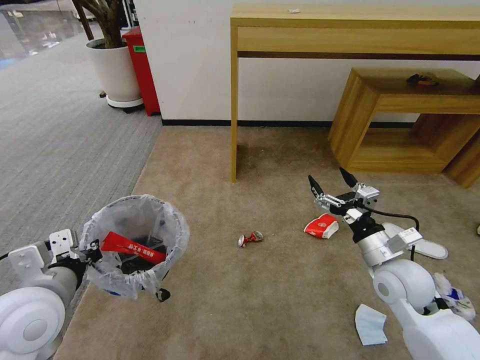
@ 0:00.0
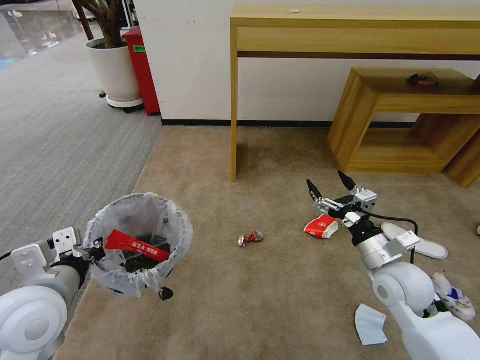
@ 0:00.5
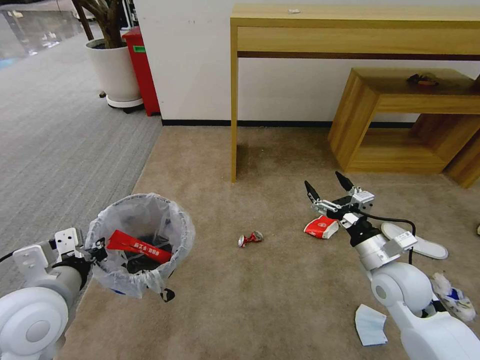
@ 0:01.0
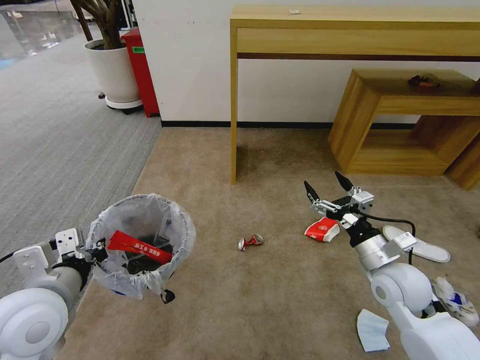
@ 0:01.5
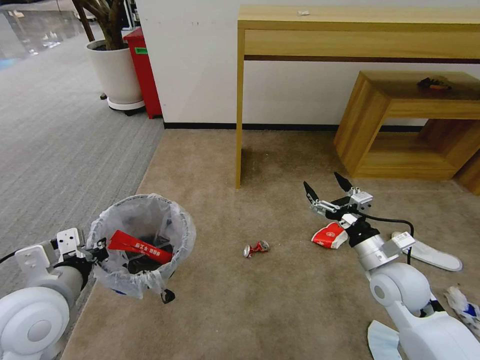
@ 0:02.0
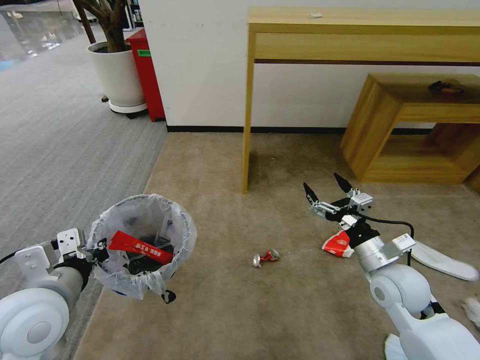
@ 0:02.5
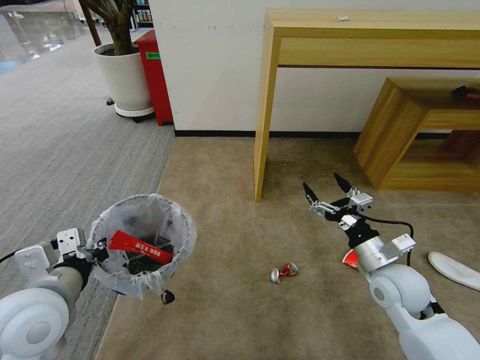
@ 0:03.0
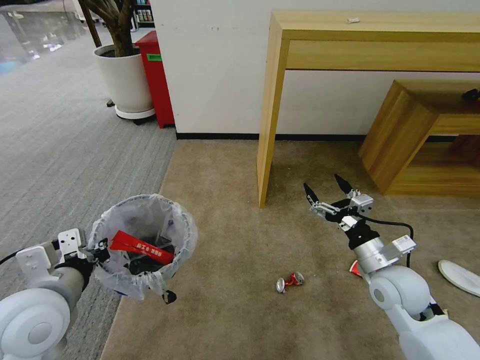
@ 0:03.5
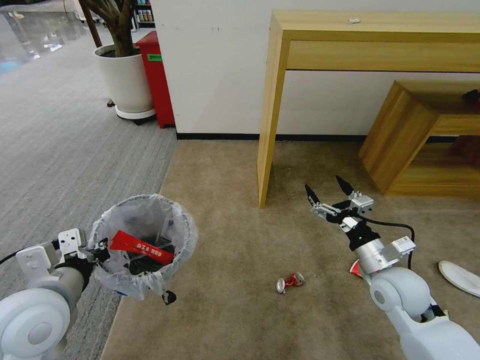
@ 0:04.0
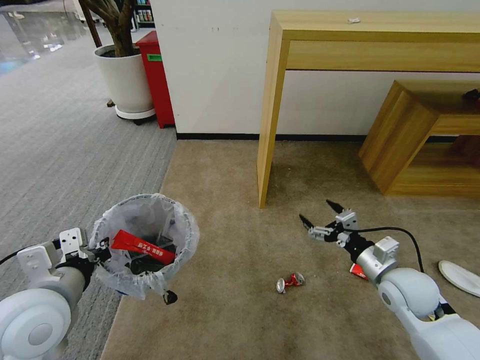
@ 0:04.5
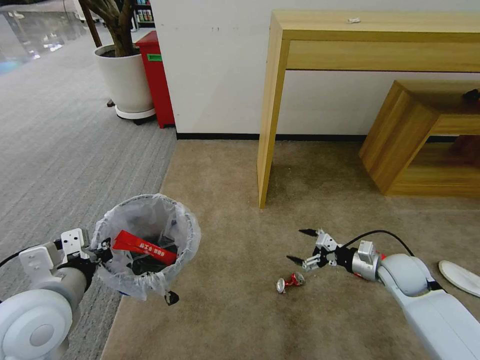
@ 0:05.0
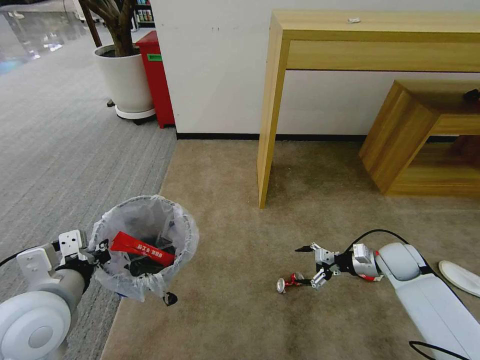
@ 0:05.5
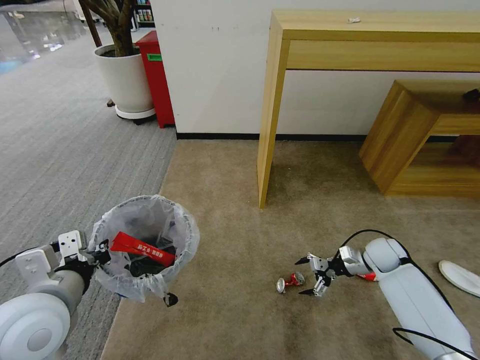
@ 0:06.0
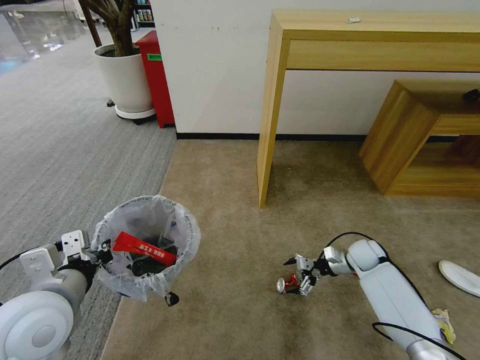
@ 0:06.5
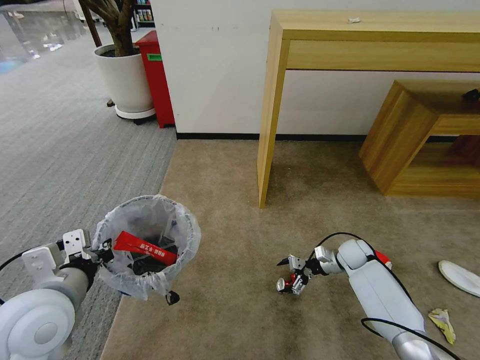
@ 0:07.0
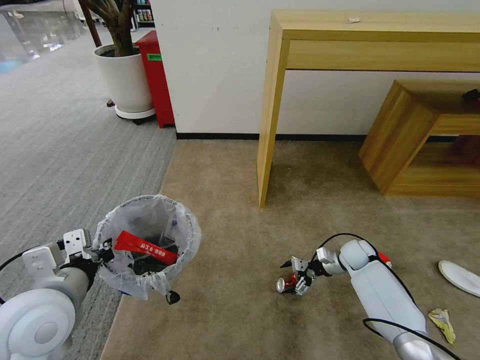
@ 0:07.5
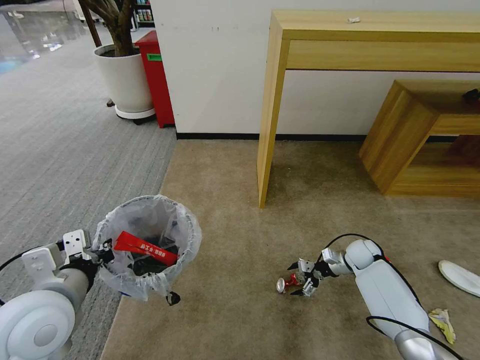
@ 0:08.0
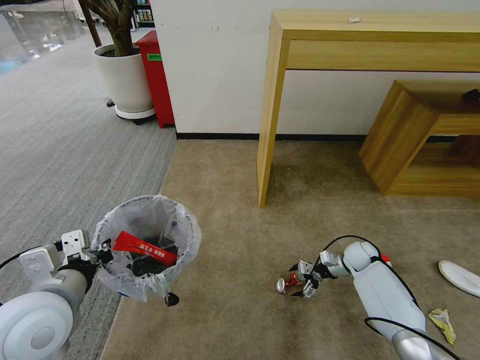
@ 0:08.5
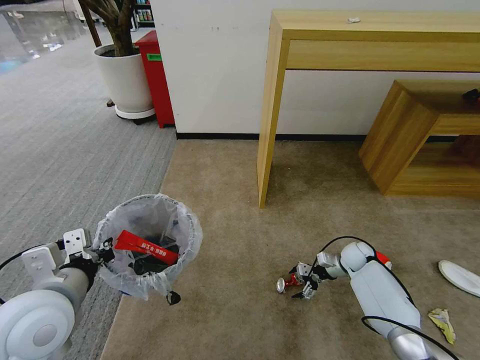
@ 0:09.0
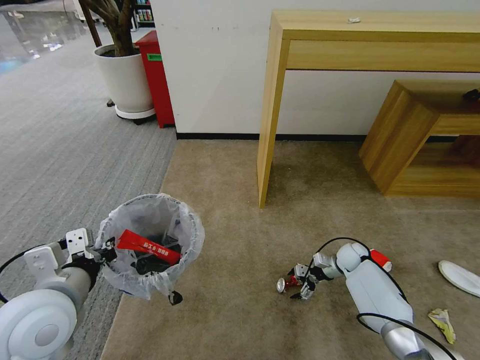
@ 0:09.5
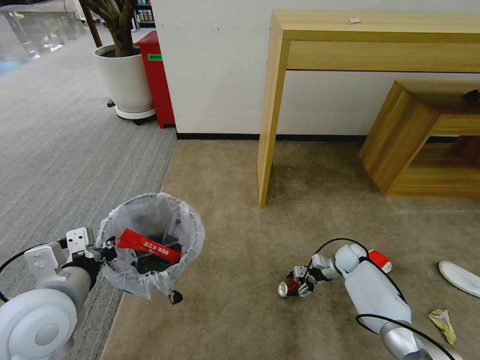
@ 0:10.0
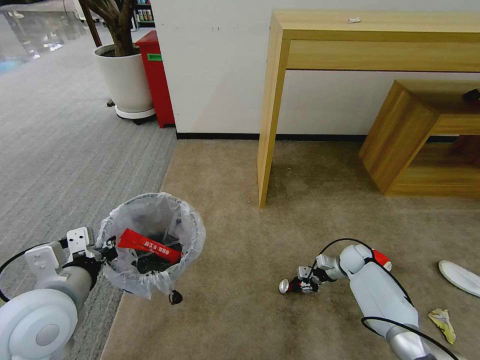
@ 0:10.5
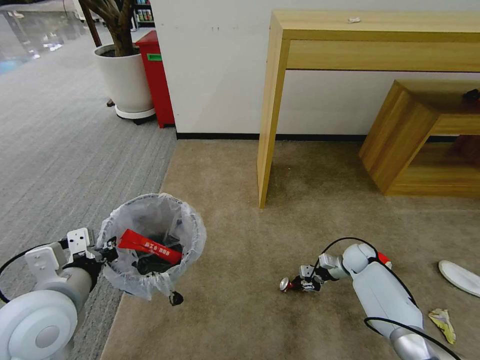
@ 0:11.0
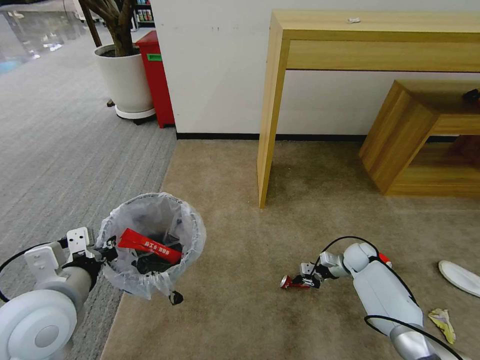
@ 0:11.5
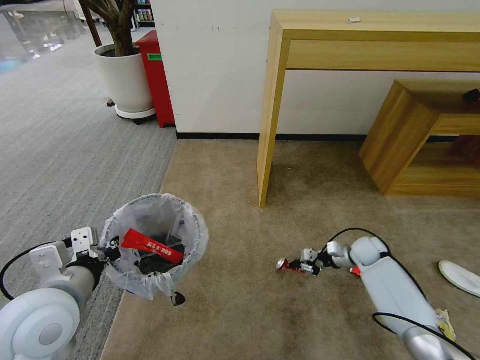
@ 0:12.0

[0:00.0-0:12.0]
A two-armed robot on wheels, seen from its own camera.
Task of the whole recording: Pick up the trash bin and place the garbage on the floor into it.
0:00.0 to 0:02.0: Both grippers stay put.
0:04.0 to 0:06.0: The right gripper goes some 20 cm forward, downward and to the right.
0:06.0 to 0:08.0: The right gripper travels downward by approximately 5 cm.
0:08.0 to 0:10.0: The grippers stay close to where they were, moving slightly.
0:10.0 to 0:12.0: The right gripper moves some 5 cm, and closes its fingers.

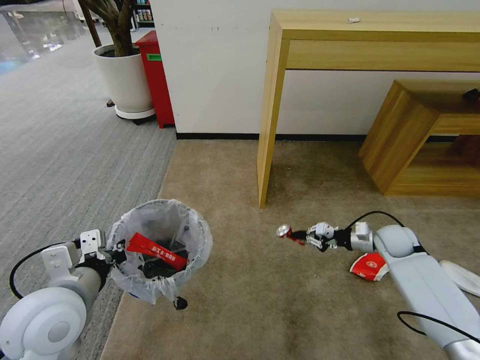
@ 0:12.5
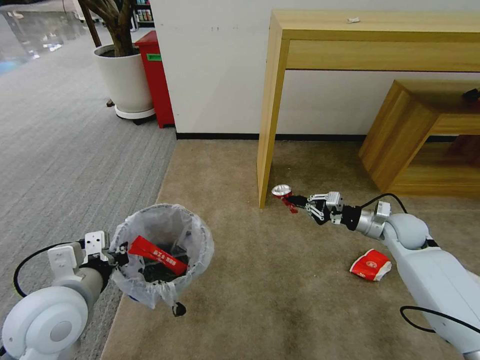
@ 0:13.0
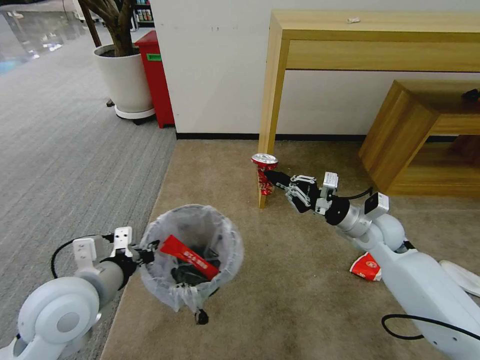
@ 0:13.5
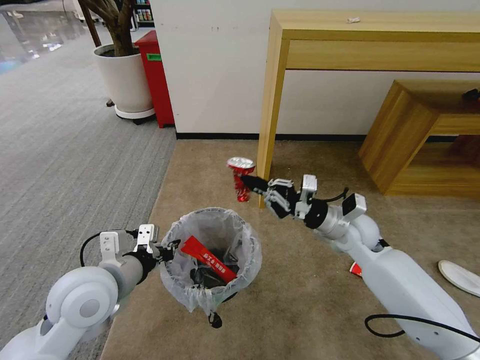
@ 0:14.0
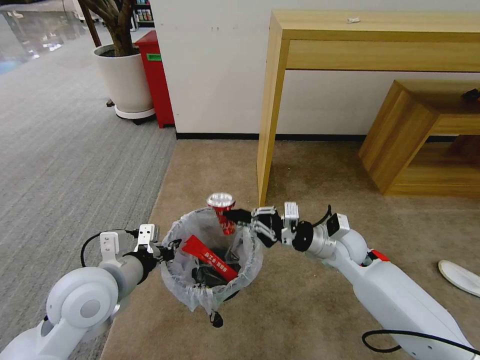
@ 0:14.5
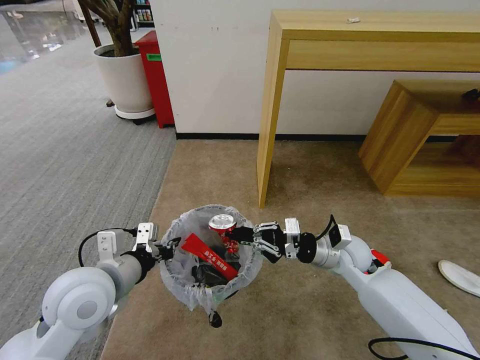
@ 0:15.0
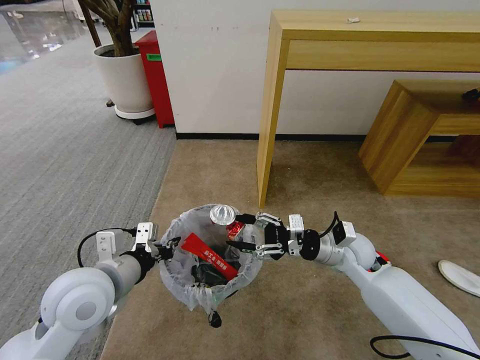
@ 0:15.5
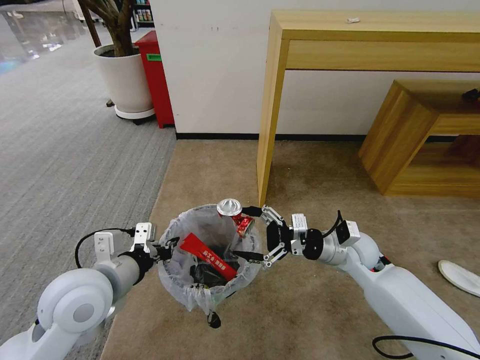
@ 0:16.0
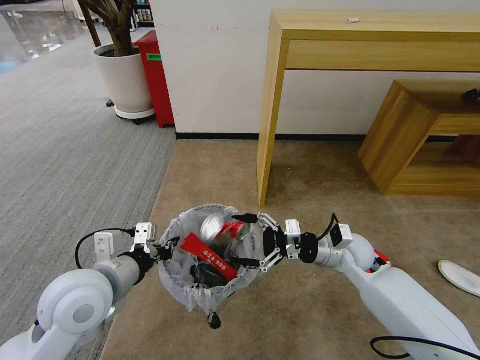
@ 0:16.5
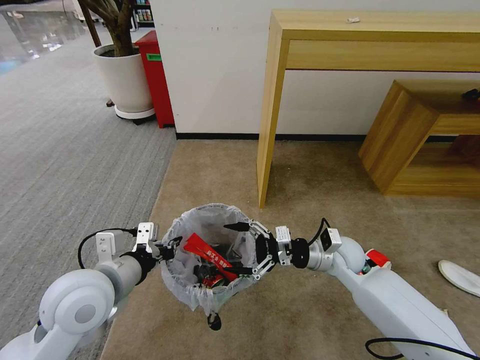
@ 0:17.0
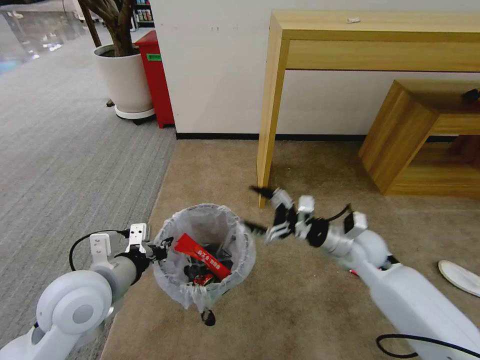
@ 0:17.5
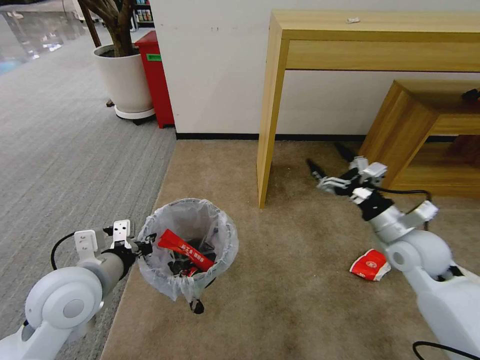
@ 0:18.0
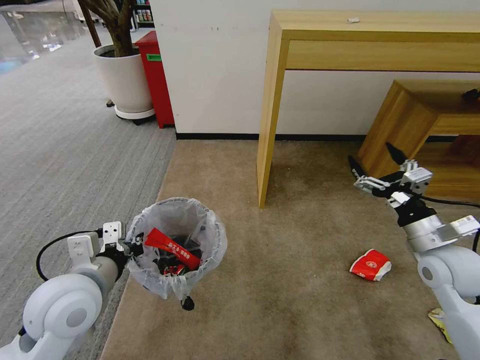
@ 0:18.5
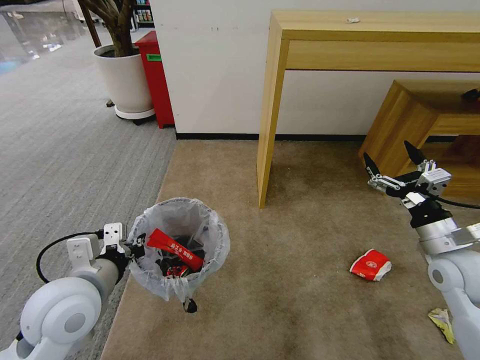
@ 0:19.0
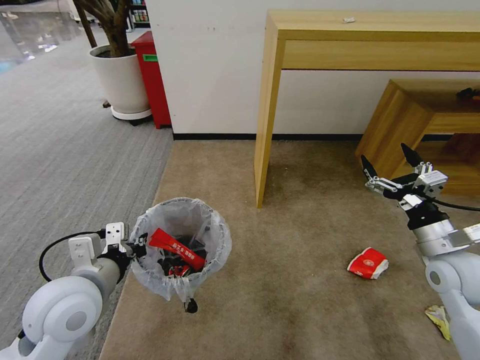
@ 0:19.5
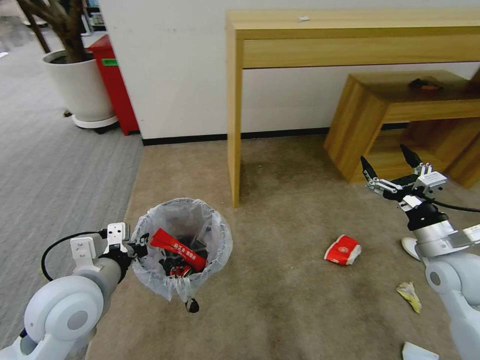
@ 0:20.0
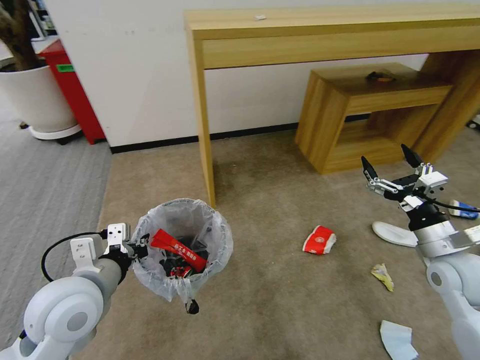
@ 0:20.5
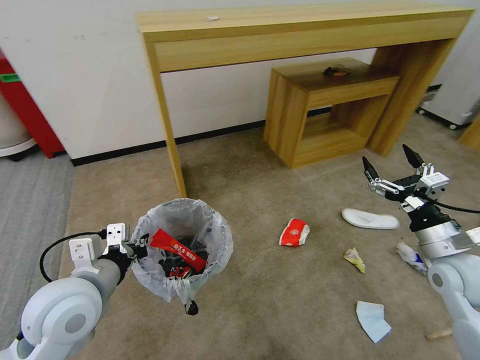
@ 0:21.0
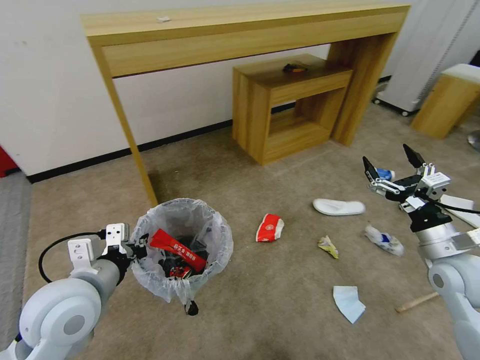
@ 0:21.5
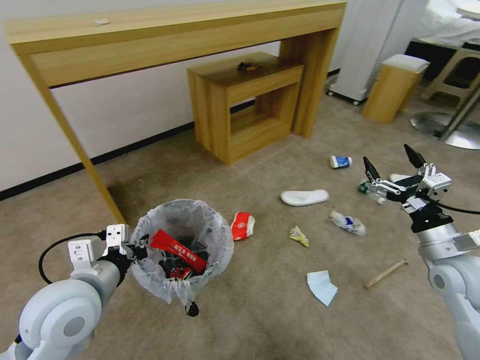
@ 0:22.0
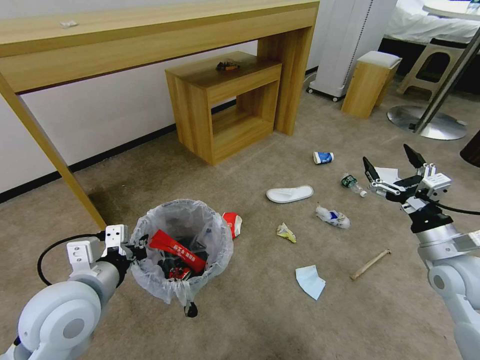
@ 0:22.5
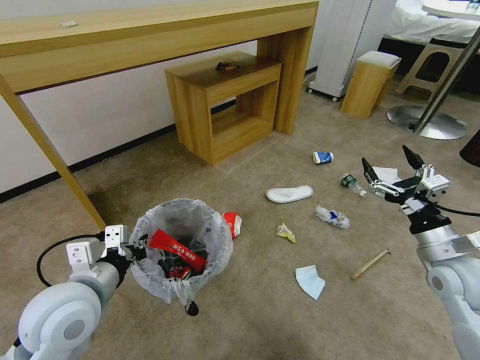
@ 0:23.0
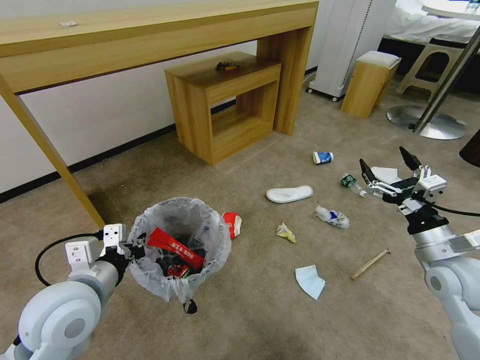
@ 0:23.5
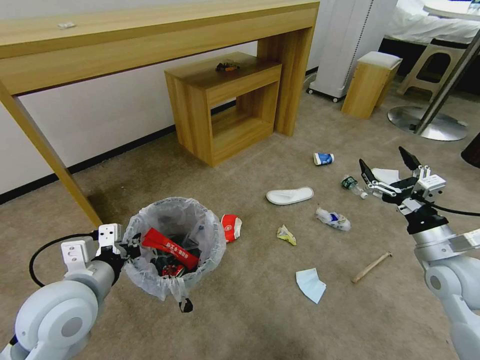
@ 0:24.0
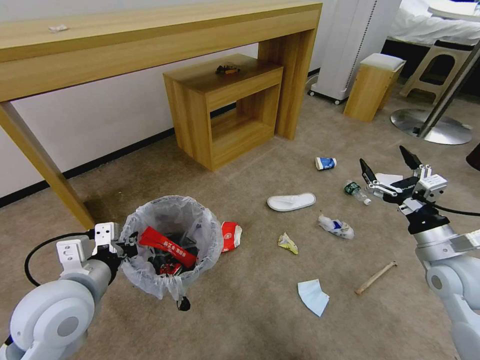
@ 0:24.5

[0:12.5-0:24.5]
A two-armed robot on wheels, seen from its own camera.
Task of the whole recording: Pick up the trash bin and place the garbage on the floor into it.
0:12.5 to 0:14.5: The right gripper is displaced to the left and upward by roughly 20 cm. Meanwhile the left gripper shifts by approximately 5 cm.
0:14.5 to 0:16.5: The right gripper opens up.
0:16.5 to 0:18.5: The right gripper is displaced to the right, backward and upward by about 20 cm.

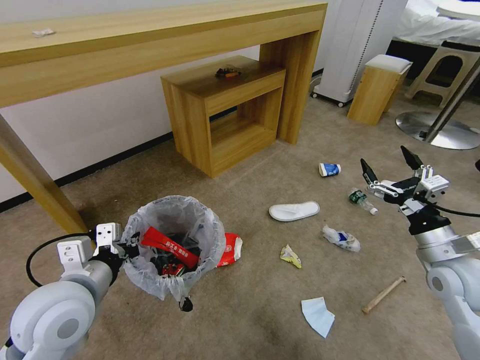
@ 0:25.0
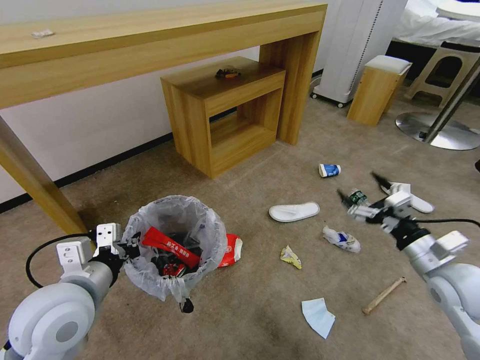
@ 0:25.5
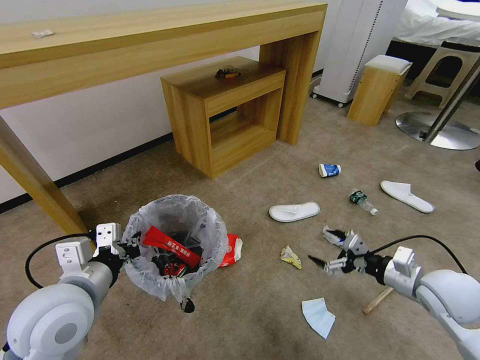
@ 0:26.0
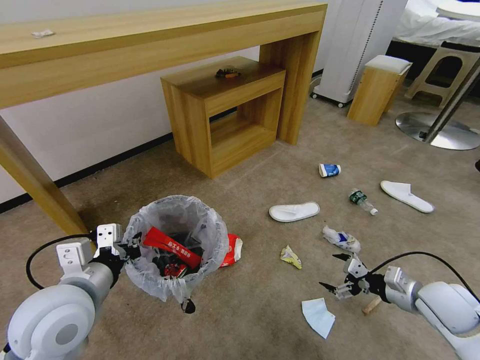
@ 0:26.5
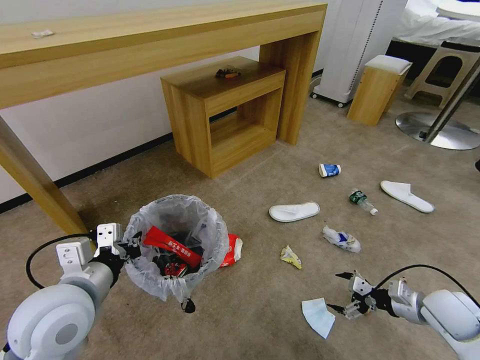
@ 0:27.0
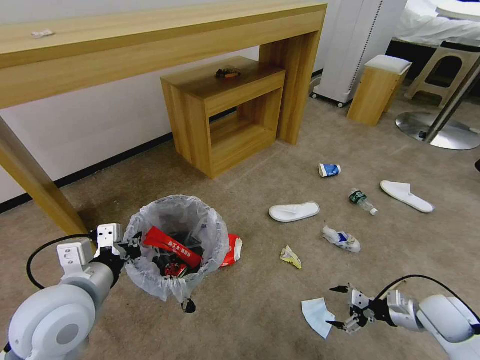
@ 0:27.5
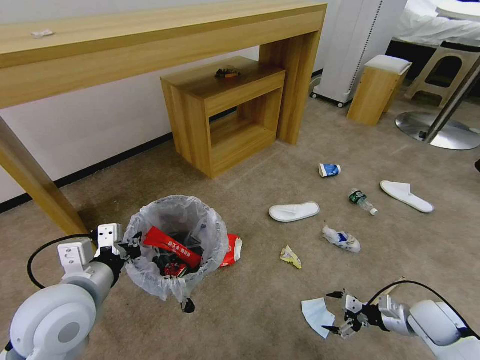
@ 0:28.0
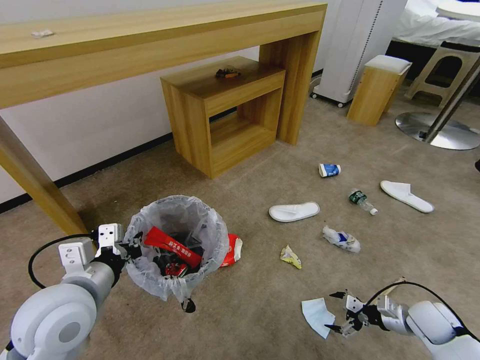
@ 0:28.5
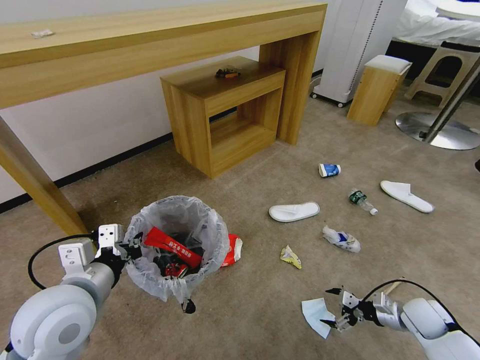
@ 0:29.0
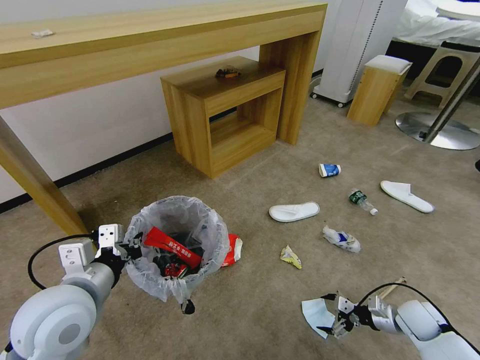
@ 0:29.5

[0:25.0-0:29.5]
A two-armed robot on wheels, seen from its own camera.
Task of the whole recording: Pick up the trash bin and place the garbage on the floor into it.
0:25.0 to 0:27.0: The right gripper is displaced downward by approximately 10 cm.
0:27.0 to 0:29.5: The right gripper moves downward, approximately 10 cm.
